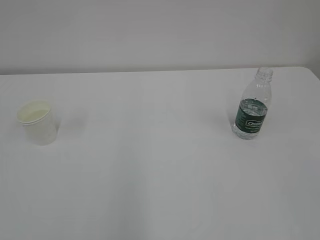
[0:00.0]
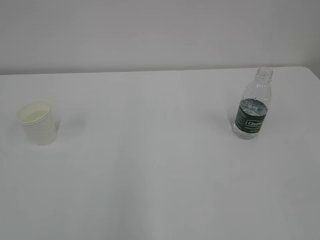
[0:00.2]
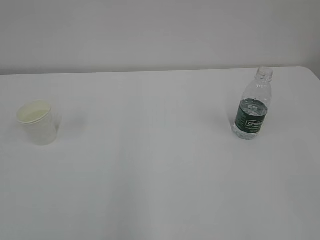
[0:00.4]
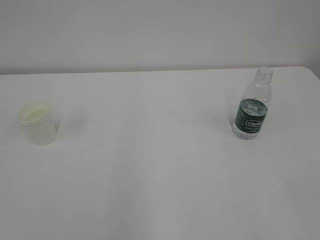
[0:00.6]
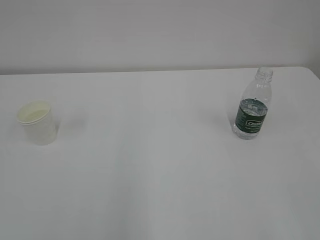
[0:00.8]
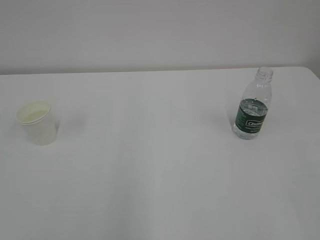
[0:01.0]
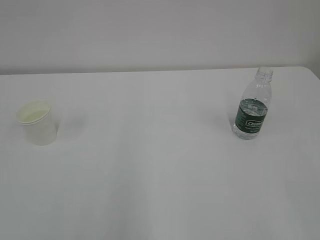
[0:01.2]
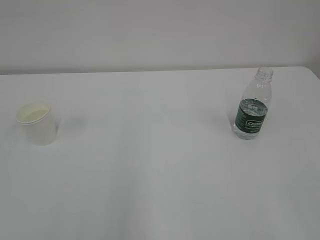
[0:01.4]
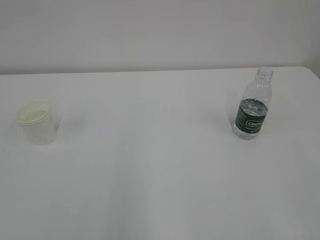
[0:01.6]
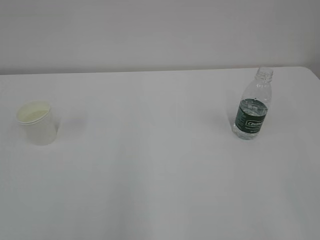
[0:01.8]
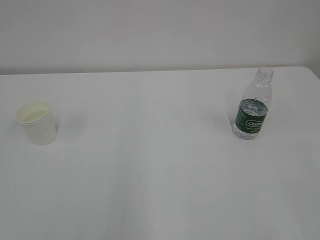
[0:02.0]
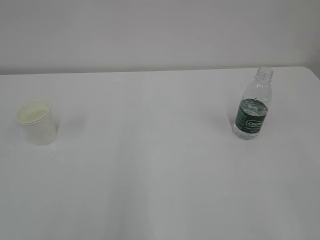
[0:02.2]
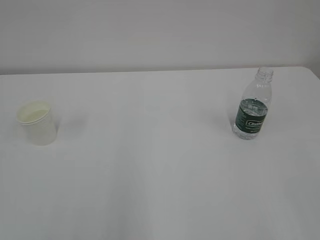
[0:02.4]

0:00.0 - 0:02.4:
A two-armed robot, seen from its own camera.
0:01.2 - 0:02.4: The two grippers keep their place.

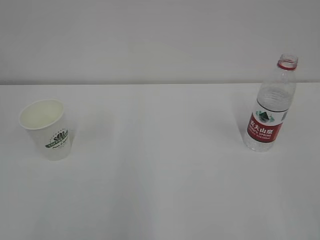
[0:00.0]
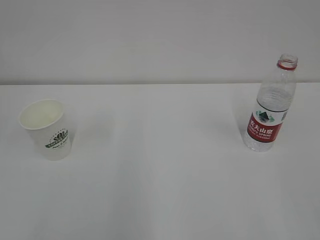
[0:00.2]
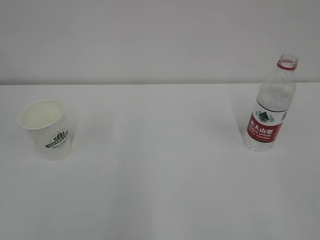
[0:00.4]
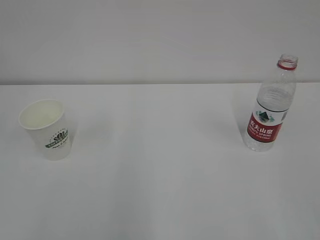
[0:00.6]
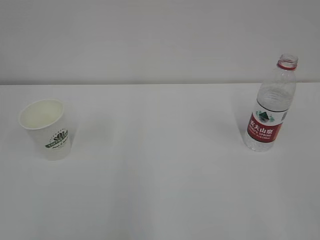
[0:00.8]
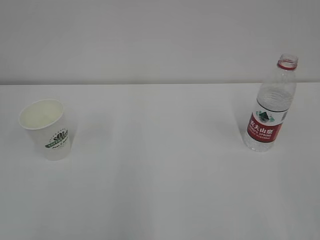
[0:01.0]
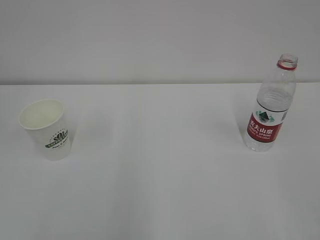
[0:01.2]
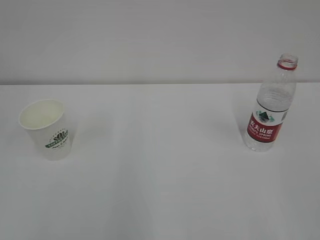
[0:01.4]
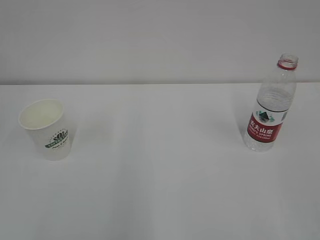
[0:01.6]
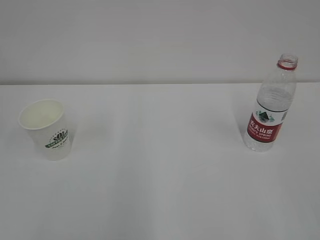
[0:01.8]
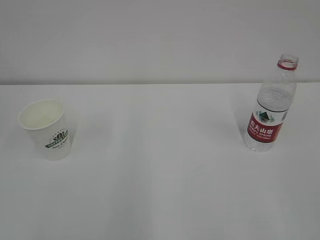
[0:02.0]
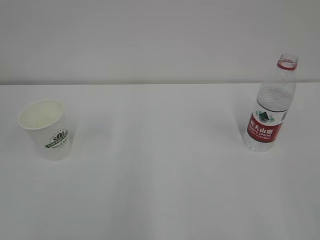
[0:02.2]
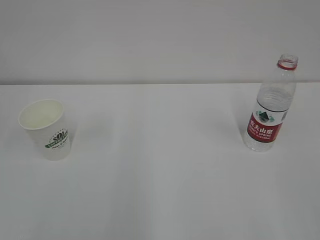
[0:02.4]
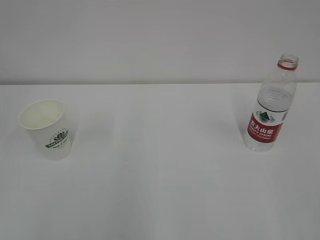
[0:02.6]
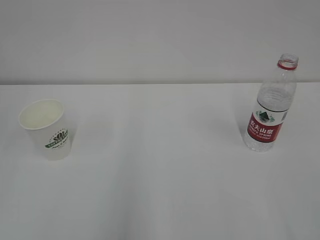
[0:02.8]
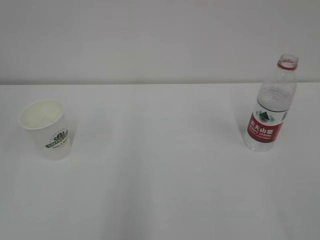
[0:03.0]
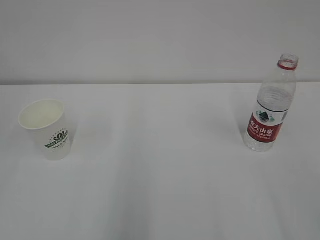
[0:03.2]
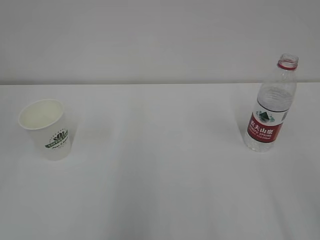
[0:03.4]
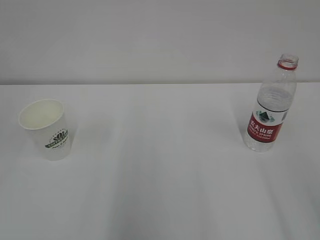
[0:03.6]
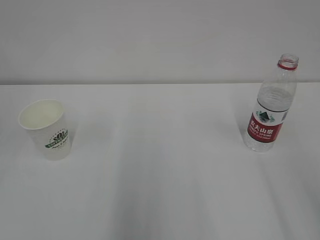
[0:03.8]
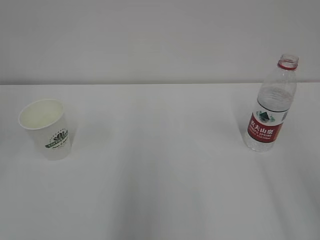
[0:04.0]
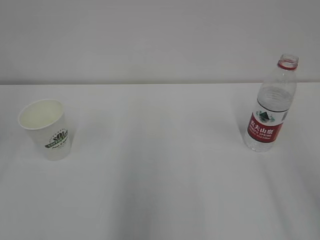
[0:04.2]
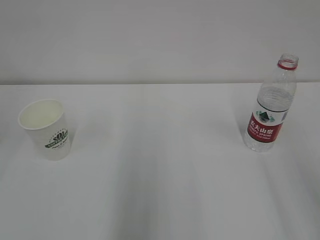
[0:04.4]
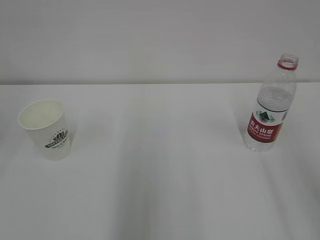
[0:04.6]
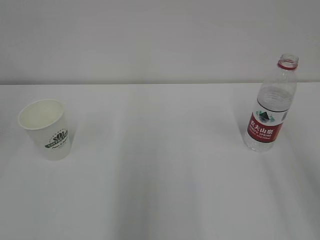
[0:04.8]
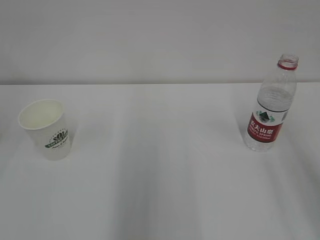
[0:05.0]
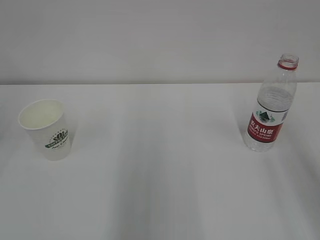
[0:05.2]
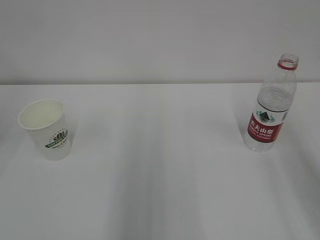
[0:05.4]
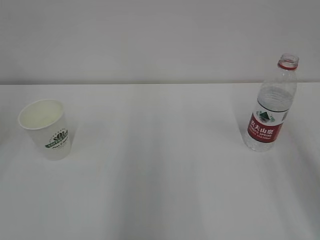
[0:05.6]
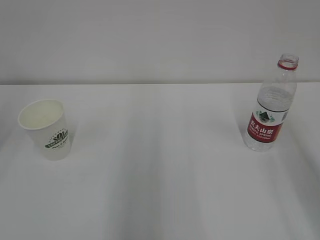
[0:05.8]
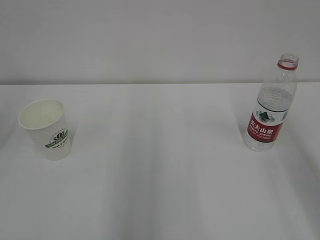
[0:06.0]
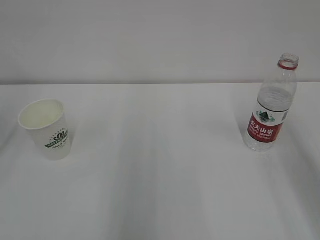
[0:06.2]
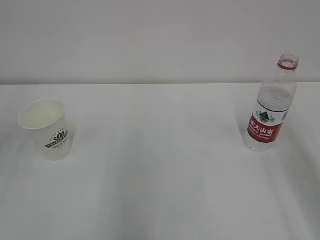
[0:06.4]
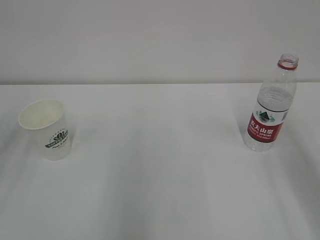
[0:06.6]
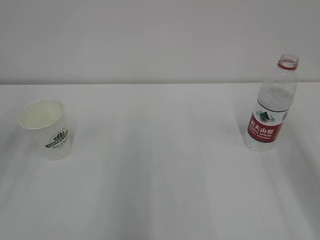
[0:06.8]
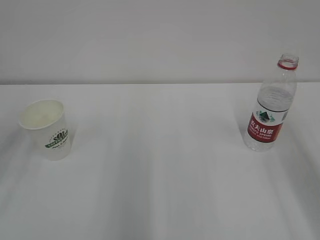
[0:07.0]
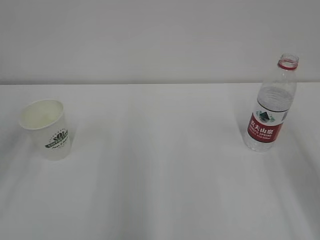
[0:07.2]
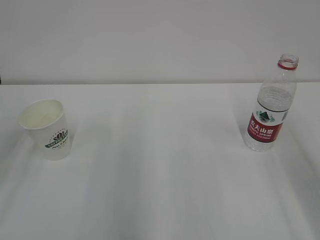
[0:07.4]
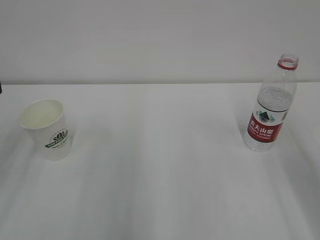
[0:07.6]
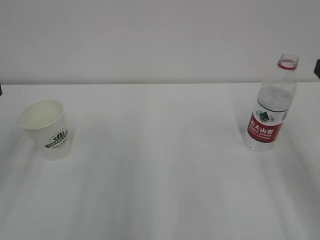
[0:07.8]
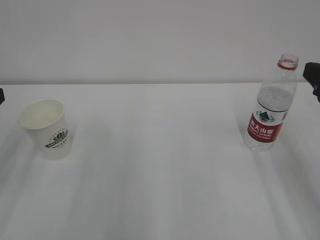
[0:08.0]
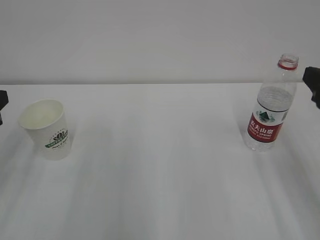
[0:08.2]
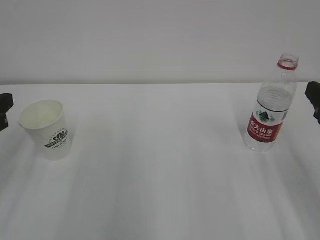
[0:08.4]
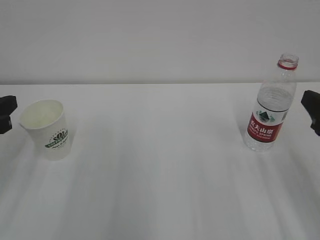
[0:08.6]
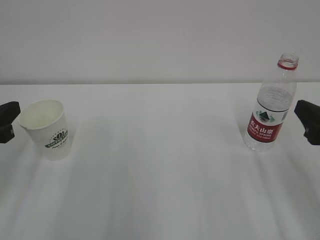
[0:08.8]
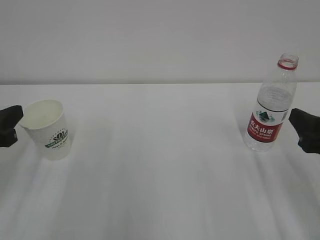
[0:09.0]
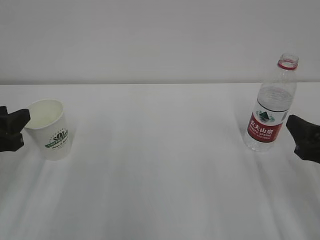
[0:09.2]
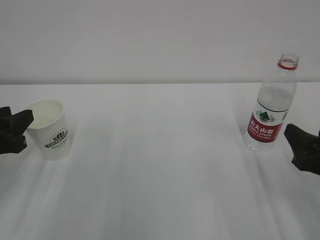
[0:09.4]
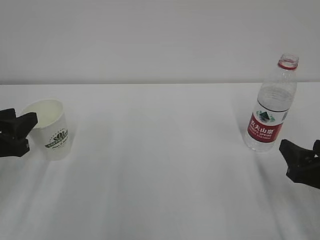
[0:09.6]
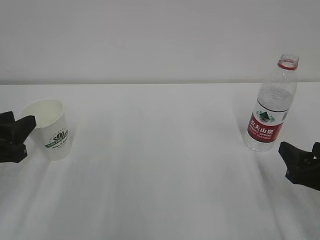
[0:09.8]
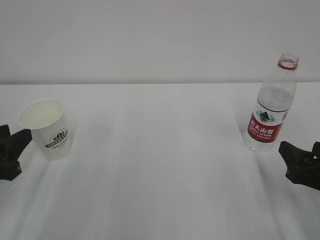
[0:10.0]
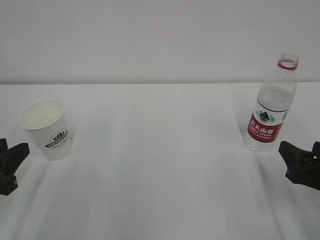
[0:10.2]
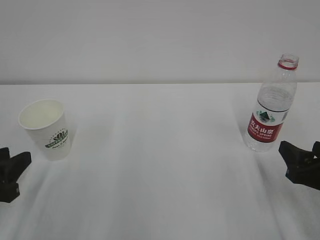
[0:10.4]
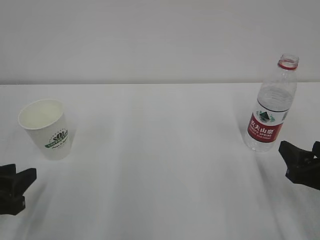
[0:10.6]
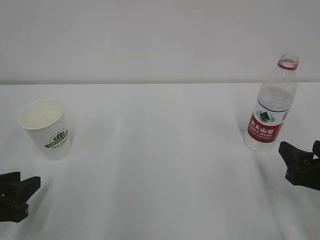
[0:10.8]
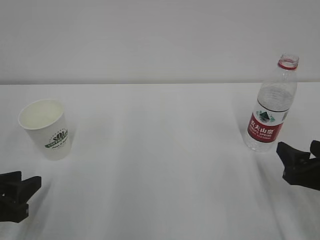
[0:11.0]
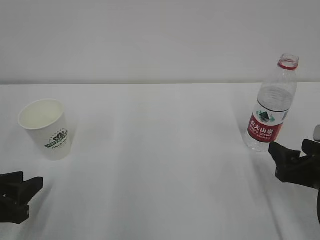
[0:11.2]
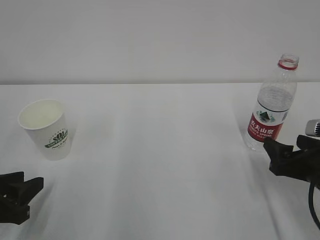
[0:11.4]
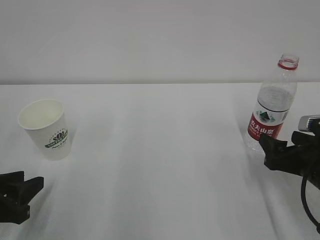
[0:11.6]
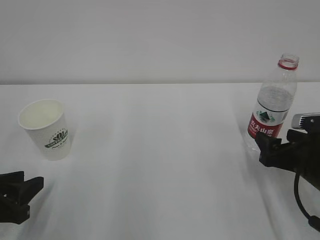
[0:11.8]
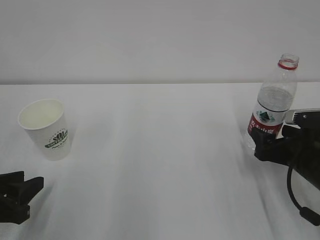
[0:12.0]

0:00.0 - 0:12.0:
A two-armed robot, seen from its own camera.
0:07.6 - 0:09.0: Both grippers travel together downward, about 10 cm.
0:09.0 - 0:10.4: The right gripper moves downward, some 5 cm. The left gripper moves roughly 5 cm.
0:10.4 - 0:12.0: The right gripper goes some 5 cm forward.

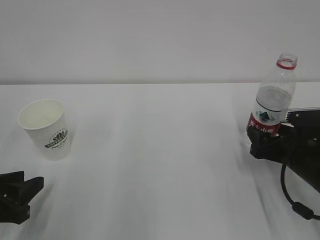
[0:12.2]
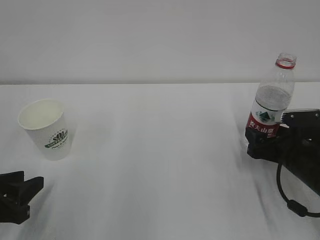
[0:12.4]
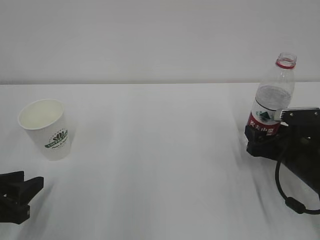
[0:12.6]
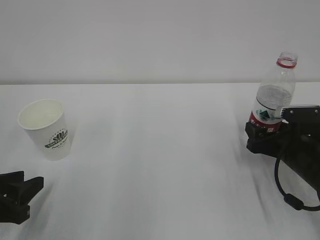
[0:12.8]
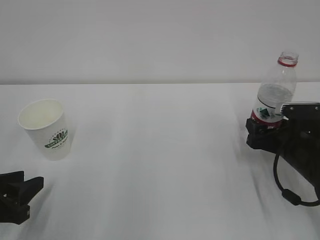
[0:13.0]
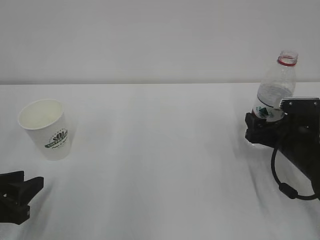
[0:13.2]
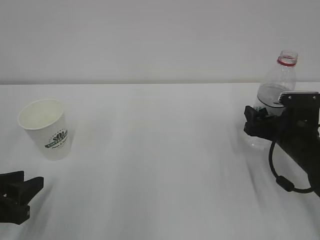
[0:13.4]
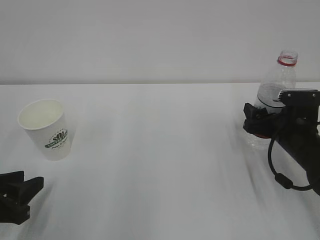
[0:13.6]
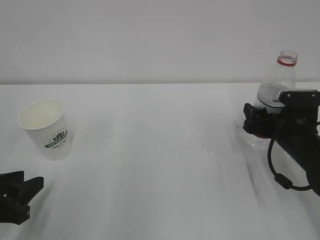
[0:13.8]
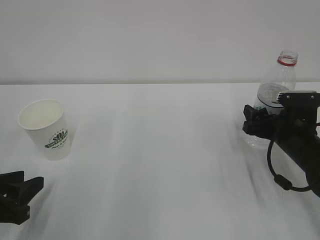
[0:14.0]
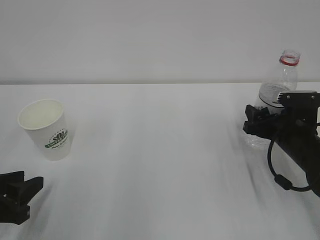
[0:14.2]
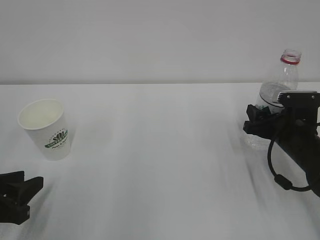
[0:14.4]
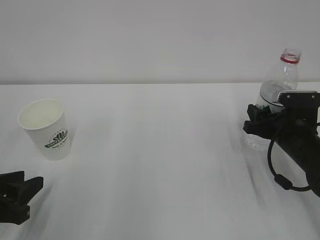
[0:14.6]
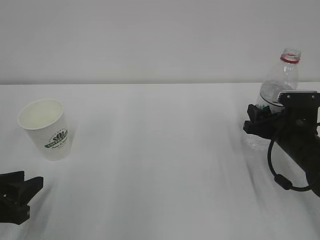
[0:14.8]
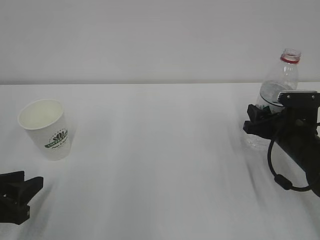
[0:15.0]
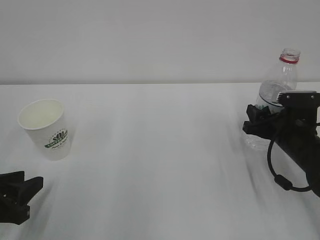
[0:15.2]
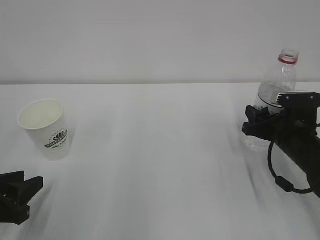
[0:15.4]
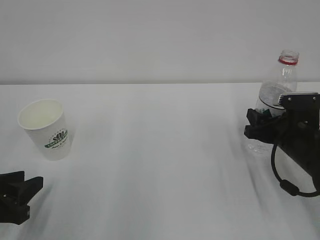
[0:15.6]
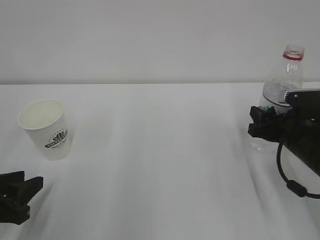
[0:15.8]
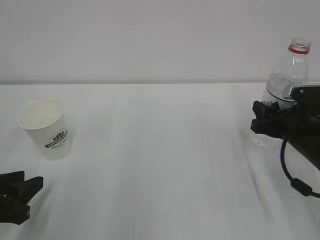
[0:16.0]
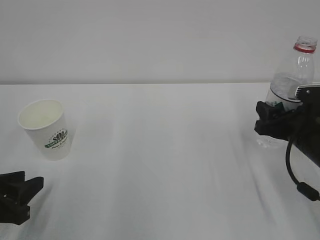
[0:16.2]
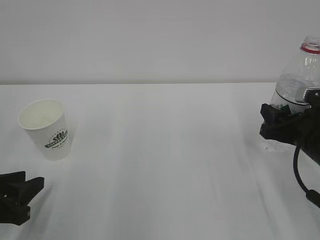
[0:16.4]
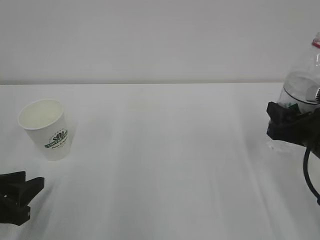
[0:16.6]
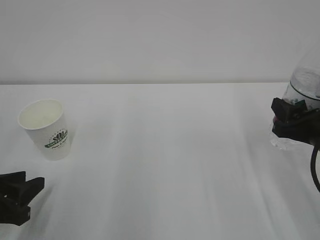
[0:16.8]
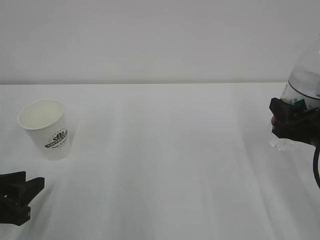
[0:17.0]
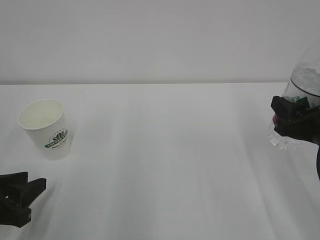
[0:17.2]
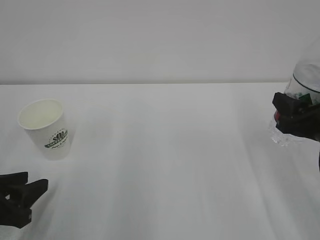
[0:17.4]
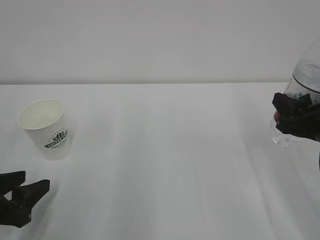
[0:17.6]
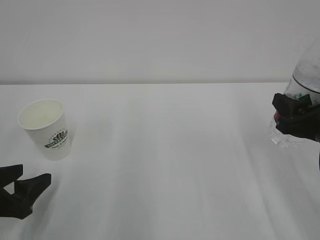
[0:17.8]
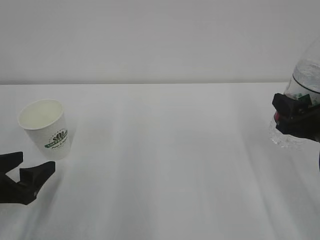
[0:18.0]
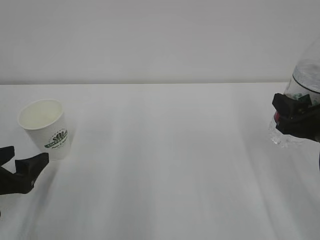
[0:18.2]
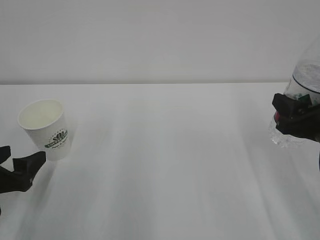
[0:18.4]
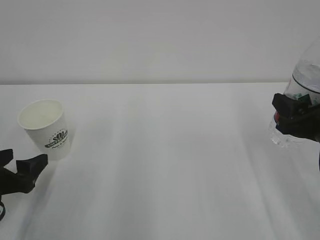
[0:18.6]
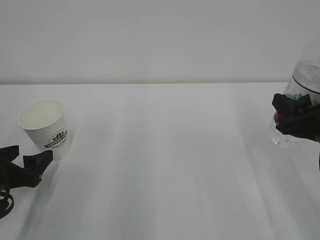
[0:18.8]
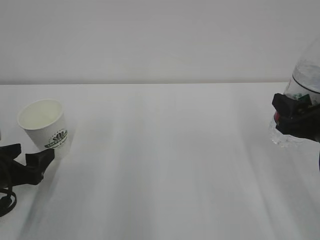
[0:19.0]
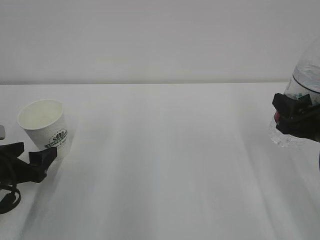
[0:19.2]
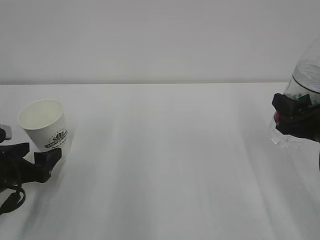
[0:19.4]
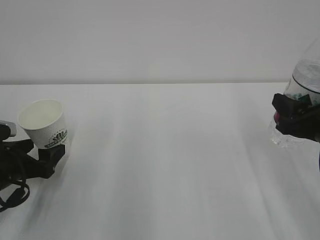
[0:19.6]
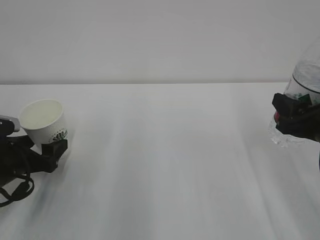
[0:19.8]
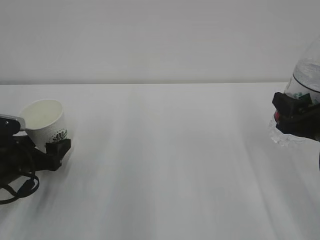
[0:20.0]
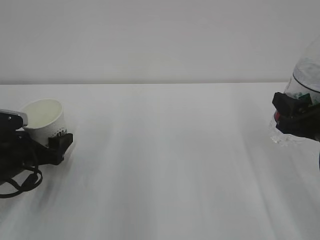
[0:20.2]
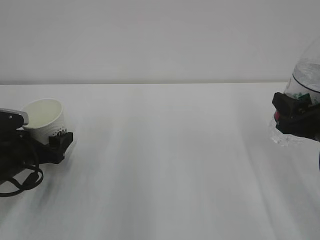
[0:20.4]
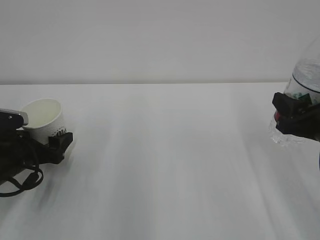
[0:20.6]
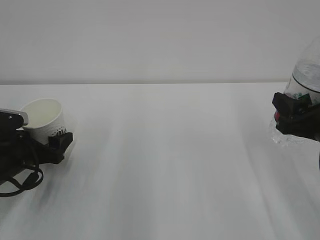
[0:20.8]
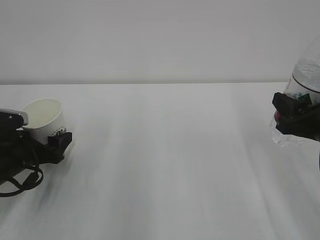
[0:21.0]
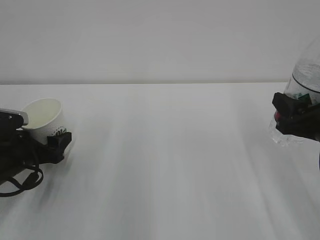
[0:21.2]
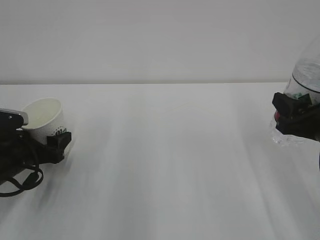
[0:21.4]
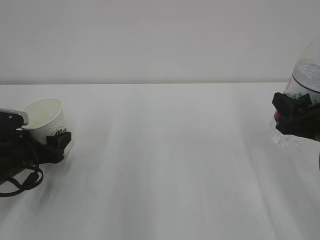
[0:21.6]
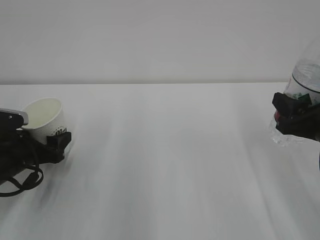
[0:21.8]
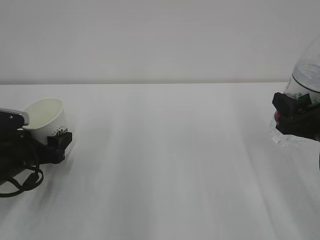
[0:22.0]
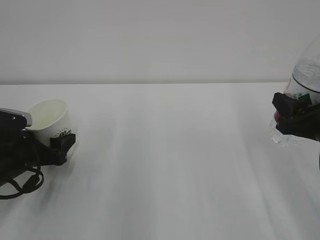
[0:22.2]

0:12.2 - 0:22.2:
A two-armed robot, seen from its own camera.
0:12.2 - 0:13.6: The grippers stay close to where they were, moving slightly.
0:13.6 - 0:15.0: The right gripper closes.
0:15.0 - 0:16.4: The right gripper shifts by about 5 cm.
0:16.4 - 0:18.0: The left gripper opens up; the right gripper changes place by approximately 5 cm.
0:18.0 - 0:19.4: The left gripper is displaced forward by about 5 cm.
0:19.4 - 0:20.8: The grippers make only small movements.
0:20.8 - 0:22.2: Neither gripper changes place.
